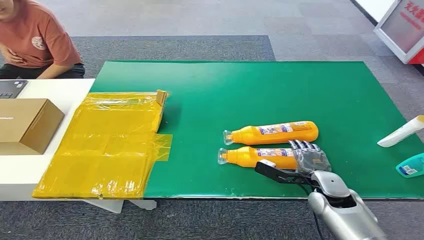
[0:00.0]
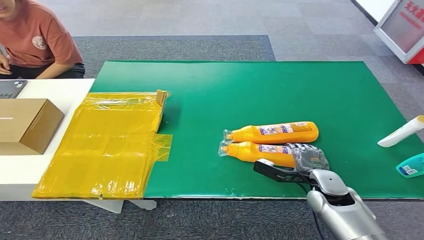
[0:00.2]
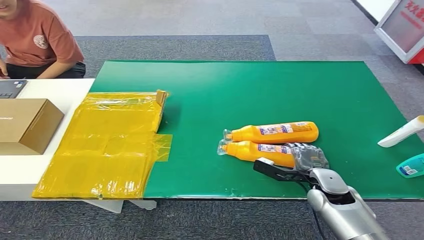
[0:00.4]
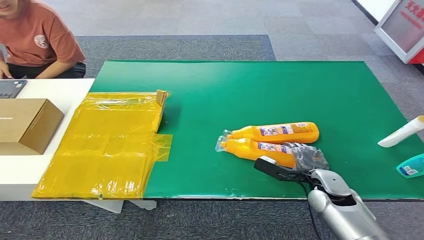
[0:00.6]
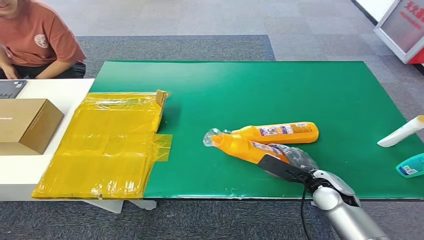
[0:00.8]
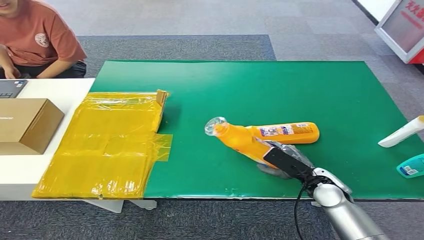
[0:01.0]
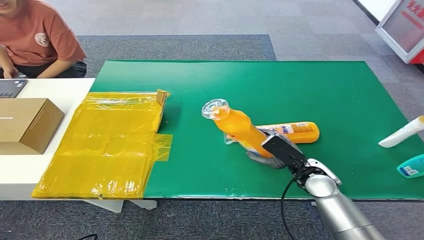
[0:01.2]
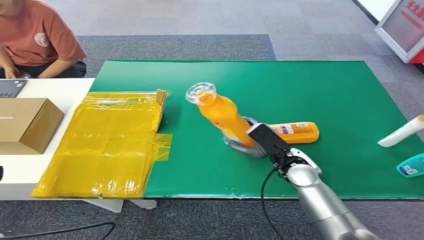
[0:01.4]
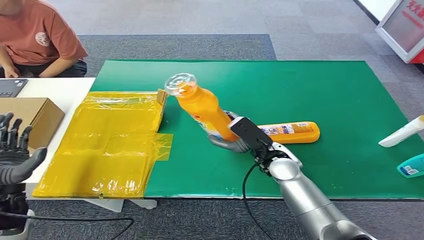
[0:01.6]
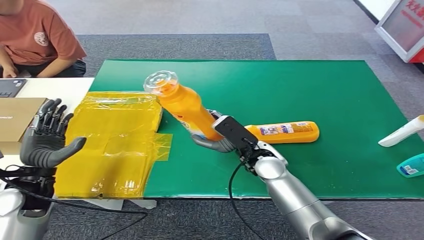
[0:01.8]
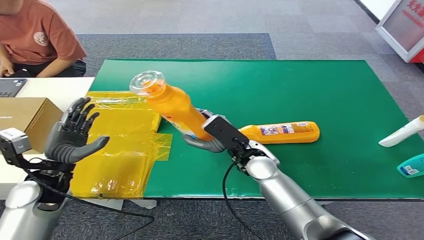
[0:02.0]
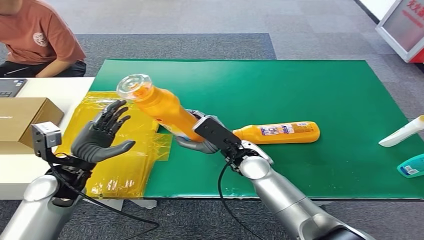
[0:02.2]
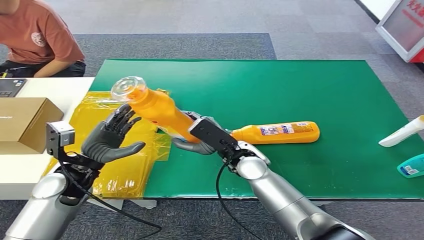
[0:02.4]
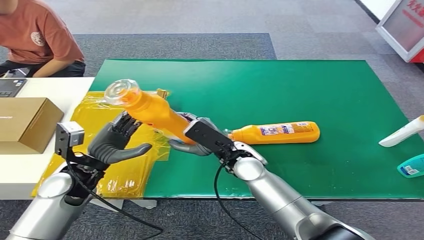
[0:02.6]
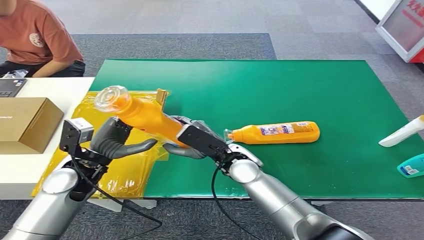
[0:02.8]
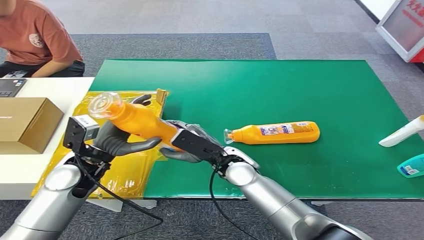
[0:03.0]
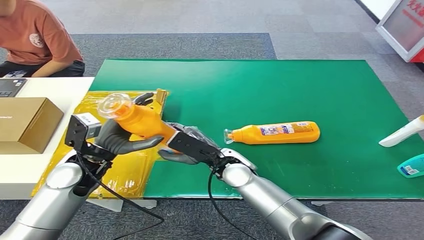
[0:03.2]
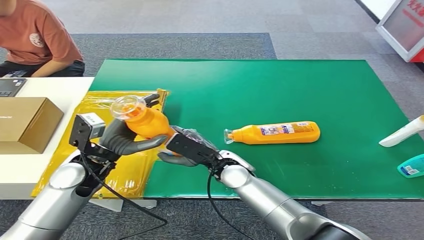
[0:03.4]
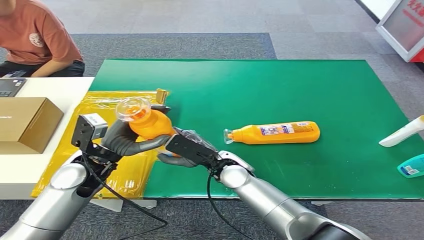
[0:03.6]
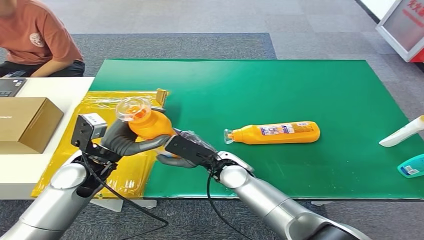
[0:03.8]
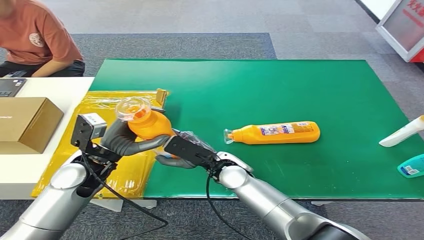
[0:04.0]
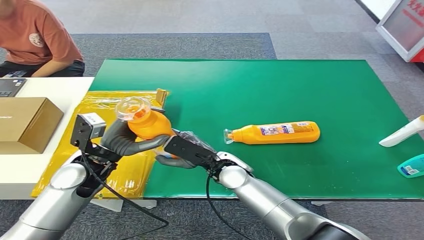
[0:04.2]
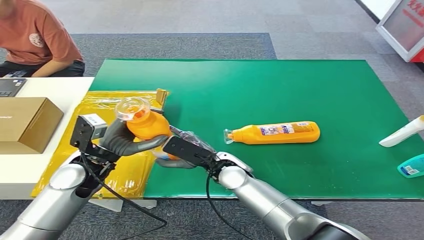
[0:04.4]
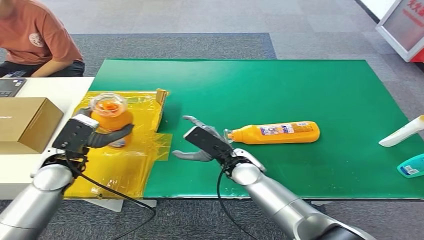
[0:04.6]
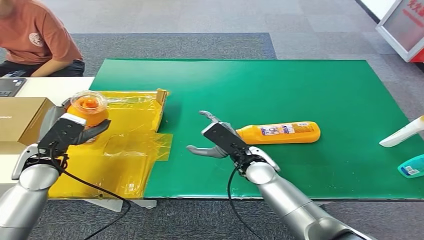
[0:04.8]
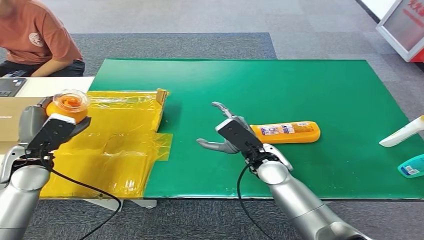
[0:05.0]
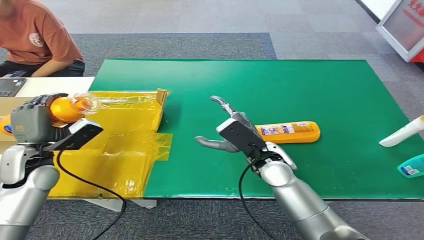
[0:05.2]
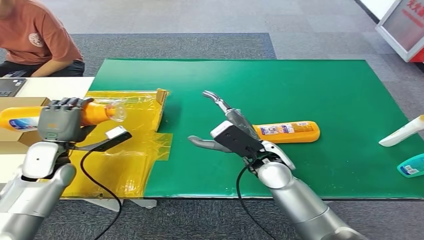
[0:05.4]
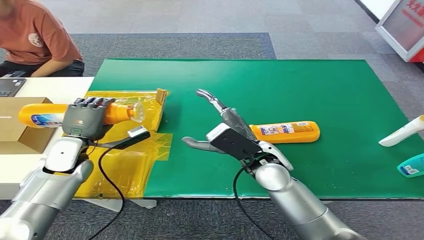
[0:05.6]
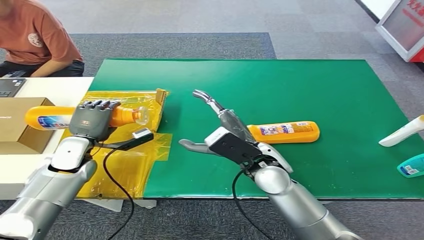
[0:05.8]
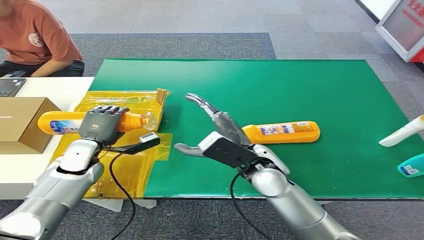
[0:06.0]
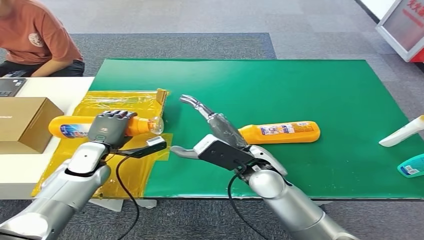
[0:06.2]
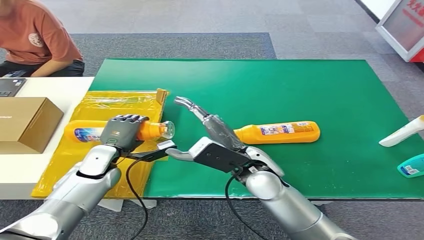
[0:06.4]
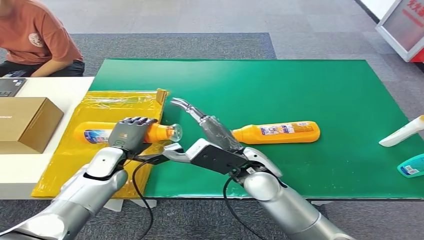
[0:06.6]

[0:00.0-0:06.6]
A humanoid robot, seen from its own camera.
Step, 0:00.0 to 0:01.6: Pick up the bottle from the table.
Step, 0:01.8 to 0:06.6: Turn the bottle to the front side.
